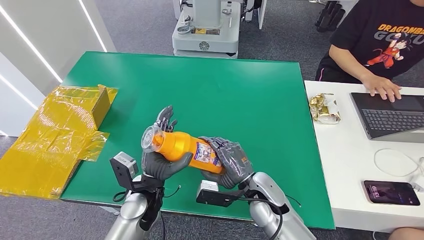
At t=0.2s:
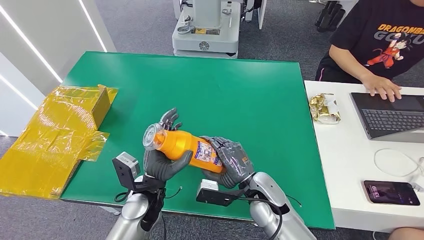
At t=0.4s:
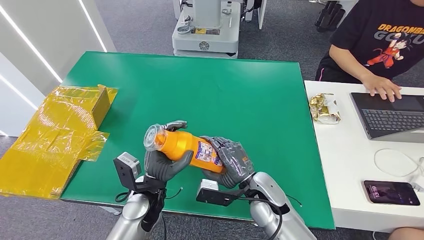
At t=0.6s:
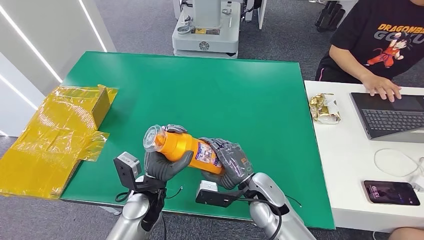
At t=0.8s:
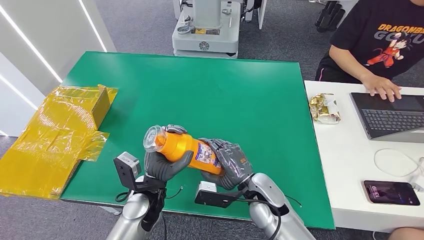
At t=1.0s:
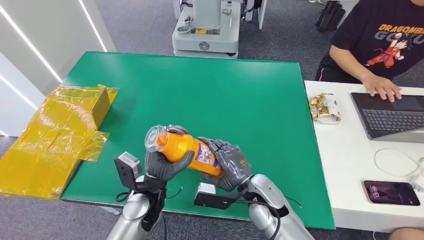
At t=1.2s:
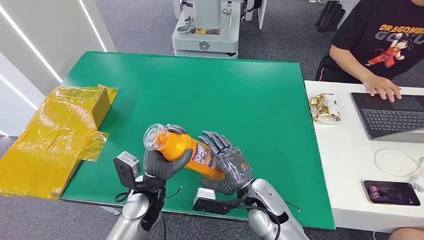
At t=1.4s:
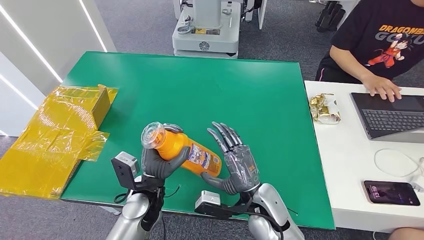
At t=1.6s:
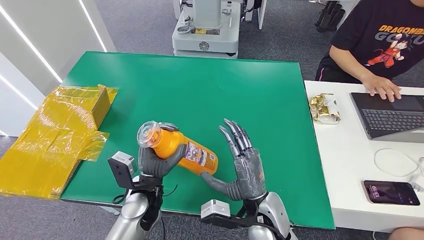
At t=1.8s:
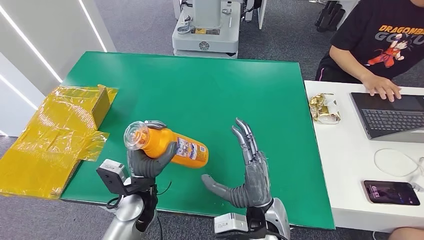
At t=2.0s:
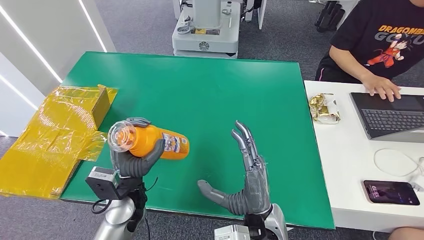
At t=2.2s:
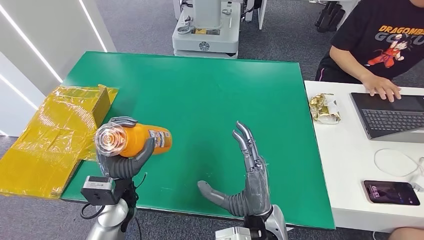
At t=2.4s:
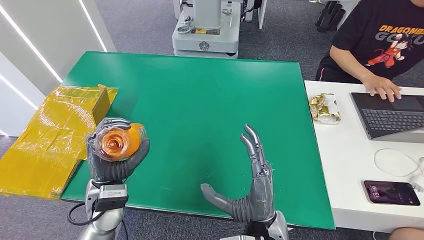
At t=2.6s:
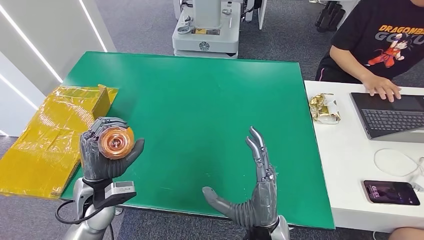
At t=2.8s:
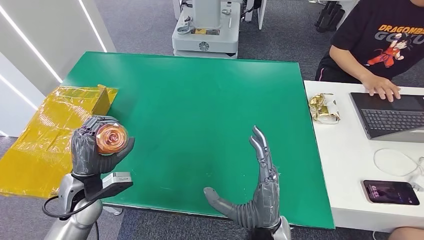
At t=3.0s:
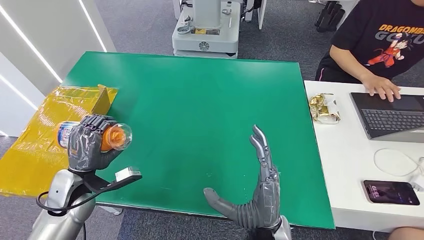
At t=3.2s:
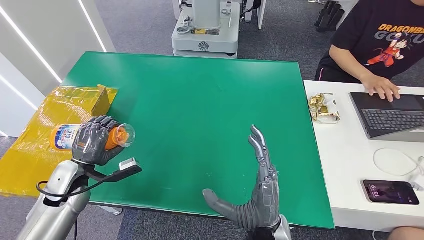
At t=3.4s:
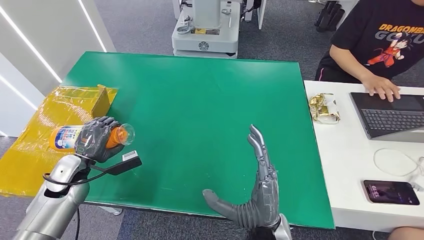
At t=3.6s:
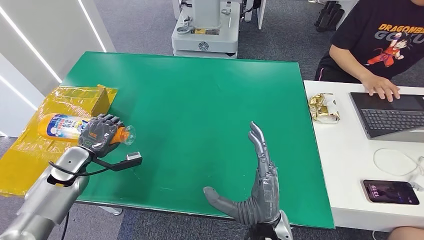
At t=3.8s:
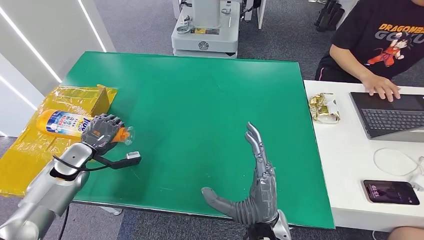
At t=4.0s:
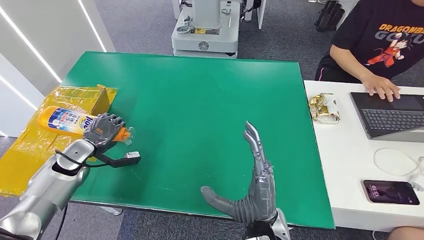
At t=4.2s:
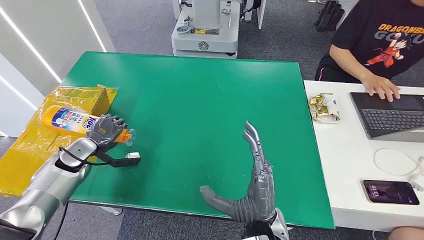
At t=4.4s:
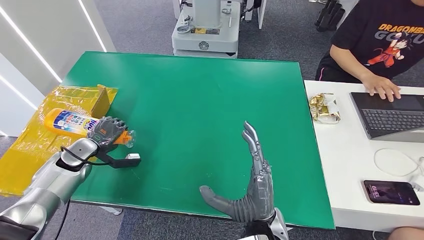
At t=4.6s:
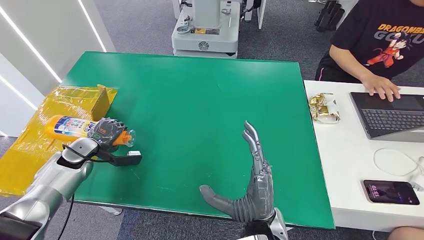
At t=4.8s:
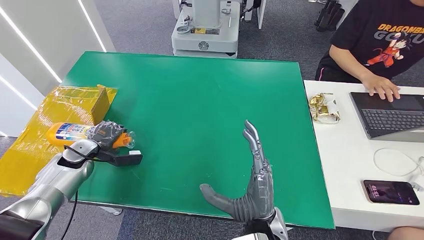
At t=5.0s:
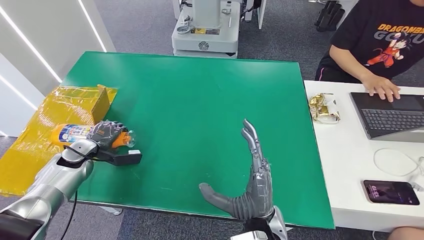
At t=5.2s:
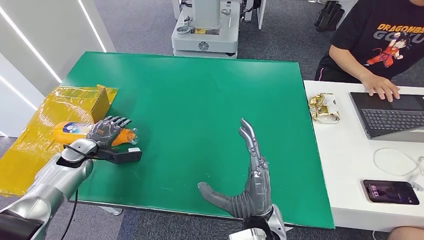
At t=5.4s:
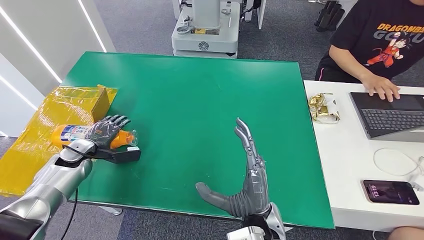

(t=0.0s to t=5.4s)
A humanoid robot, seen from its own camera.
Step, t=0.0s - t=5.4s: Turn the bottle to the front side.
t=0.0s - t=1.4s: There are only small adjustments of the hands.
t=1.4s - t=2.8s: The right hand heads backward, covering roughly 10 cm; the left hand is displaced to the left by about 15 cm.
t=2.8s - t=4.0s: The left hand heads to the left and forward, covering some 15 cm.
